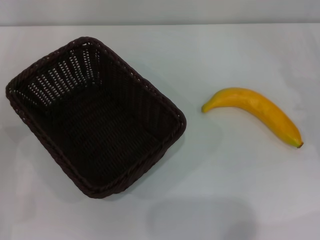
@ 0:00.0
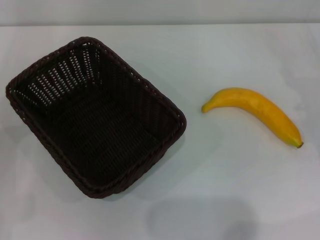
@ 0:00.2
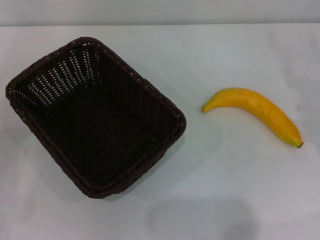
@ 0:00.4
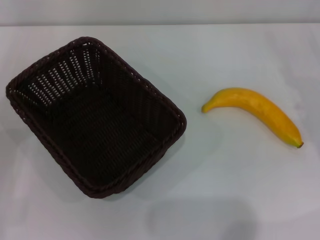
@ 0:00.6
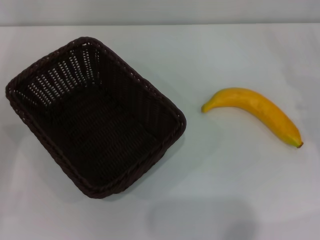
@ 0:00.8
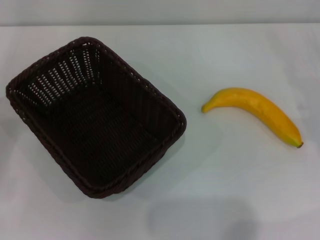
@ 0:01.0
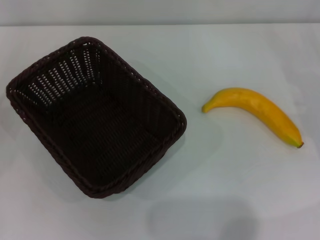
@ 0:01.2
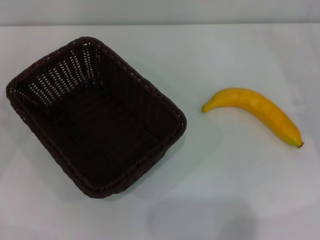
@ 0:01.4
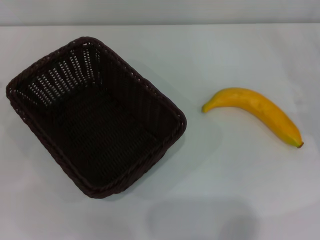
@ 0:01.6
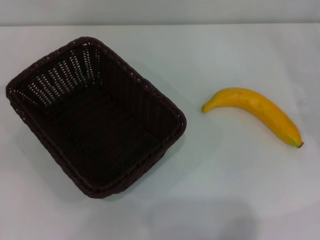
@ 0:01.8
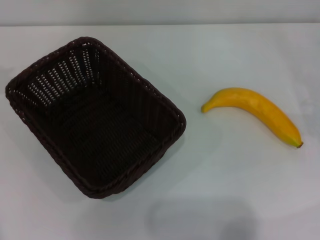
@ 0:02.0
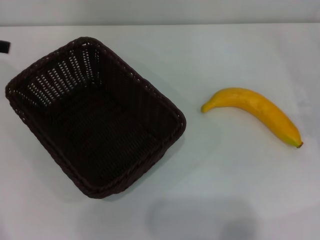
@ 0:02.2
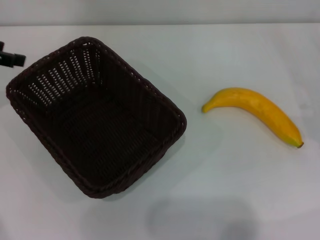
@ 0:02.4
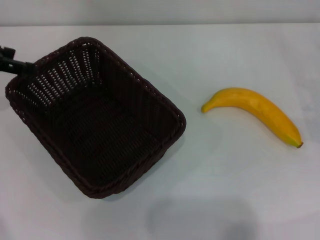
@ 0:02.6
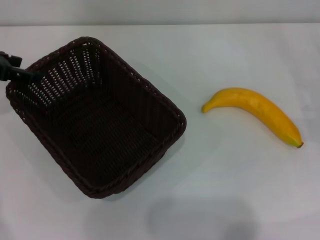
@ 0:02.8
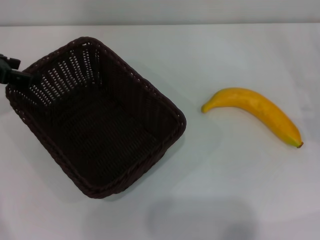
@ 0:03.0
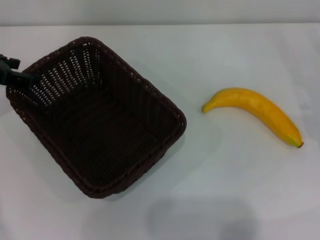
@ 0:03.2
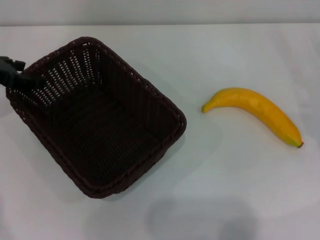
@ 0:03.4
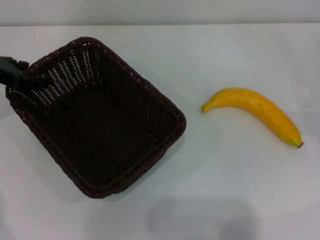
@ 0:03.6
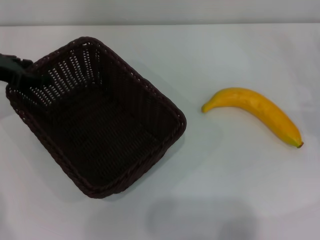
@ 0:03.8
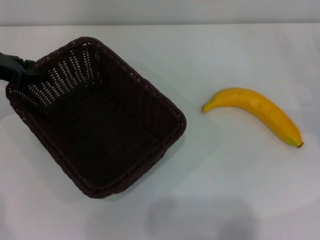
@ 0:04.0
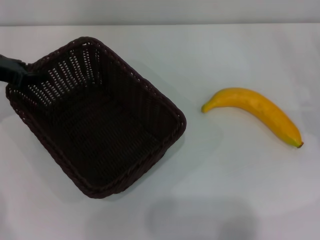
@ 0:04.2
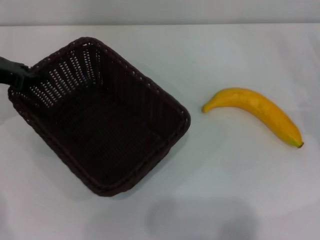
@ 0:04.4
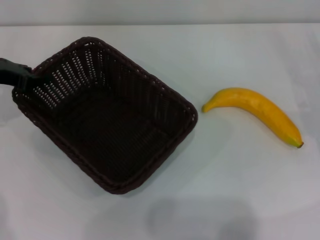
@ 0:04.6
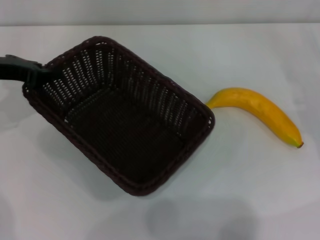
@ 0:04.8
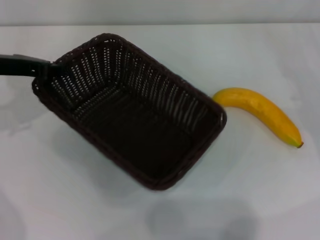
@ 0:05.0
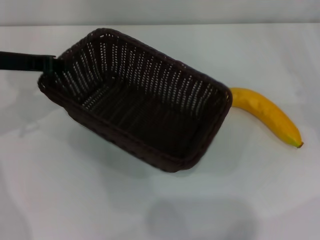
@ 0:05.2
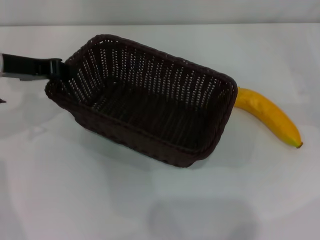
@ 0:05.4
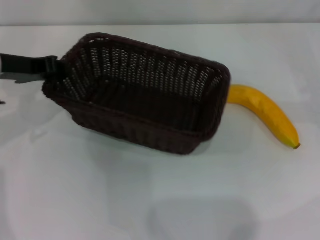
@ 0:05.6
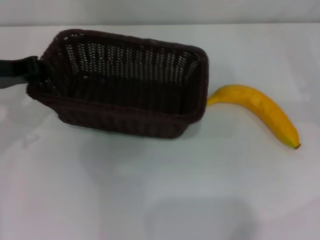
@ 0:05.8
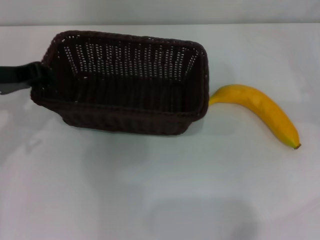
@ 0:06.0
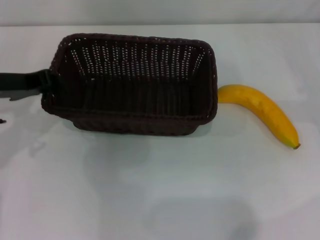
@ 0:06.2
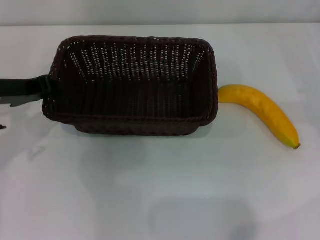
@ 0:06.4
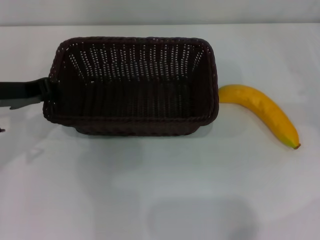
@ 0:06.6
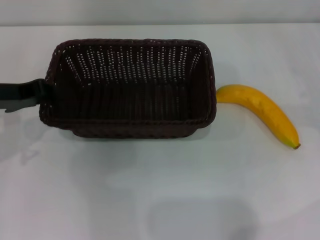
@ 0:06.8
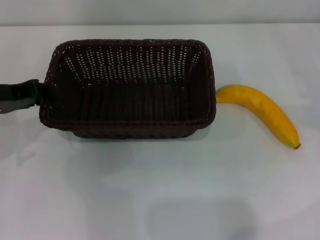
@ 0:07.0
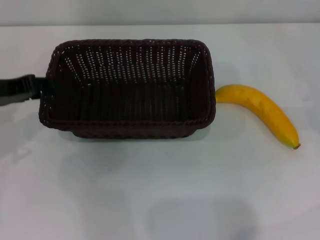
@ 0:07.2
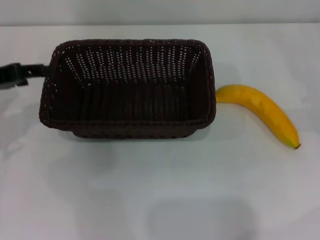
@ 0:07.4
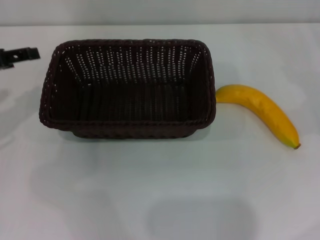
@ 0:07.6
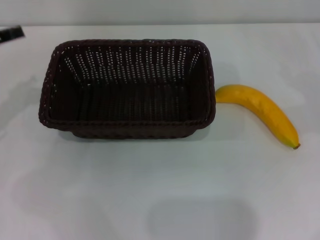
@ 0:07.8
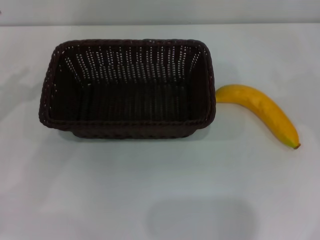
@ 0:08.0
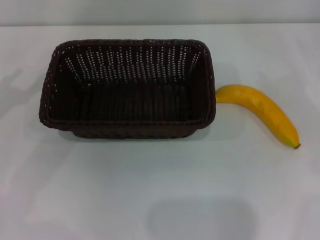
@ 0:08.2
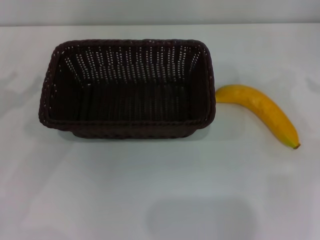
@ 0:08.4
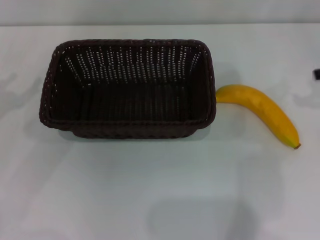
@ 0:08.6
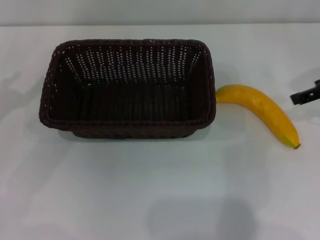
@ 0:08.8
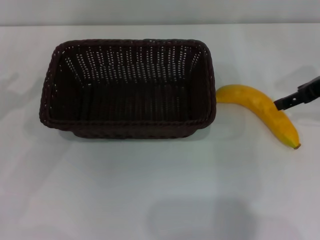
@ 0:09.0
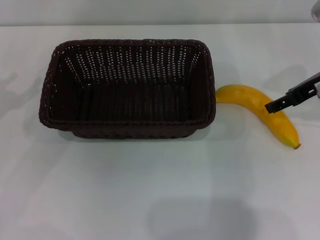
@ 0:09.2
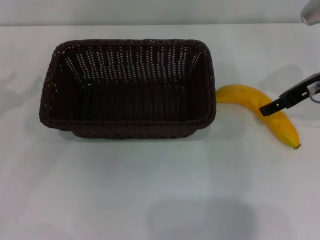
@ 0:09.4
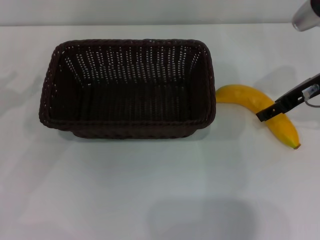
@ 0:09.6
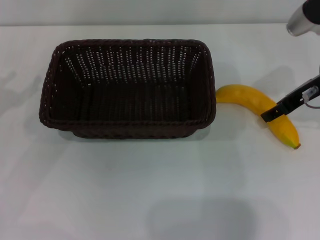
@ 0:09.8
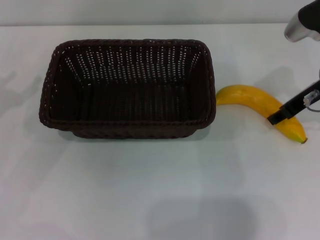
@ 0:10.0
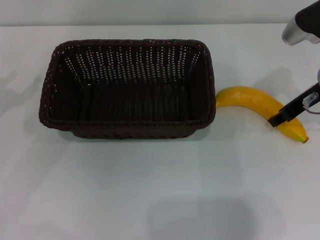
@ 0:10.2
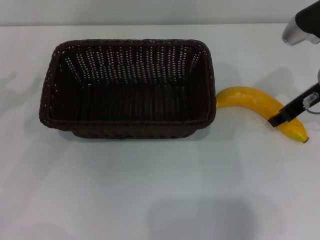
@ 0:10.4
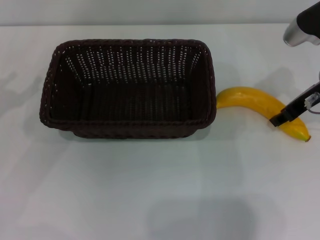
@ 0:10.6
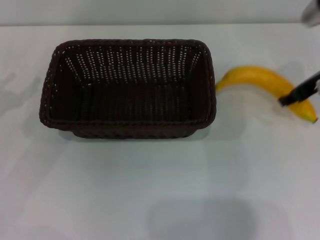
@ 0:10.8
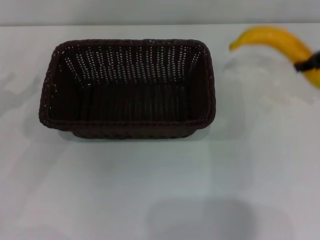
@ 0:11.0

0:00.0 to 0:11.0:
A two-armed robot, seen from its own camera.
Step, 0:00.0 to 0:04.8: Pick up the dark basket with the left gripper.
Step, 0:05.0 to 0:07.4: Place the dark basket in the center of view with the left gripper.
Step, 0:07.6 to 0:10.8: Pick up the banana with the right gripper.
0:01.6 to 0:03.2: The left gripper is displaced to the right and forward by some 15 cm.
0:03.2 to 0:04.8: The left gripper closes its fingers.
0:04.8 to 0:06.2: The left gripper travels backward by approximately 5 cm; the right gripper changes place by roughly 5 cm.
0:06.2 to 0:07.8: The left gripper heads to the left, covering roughly 10 cm, and opens.
0:07.8 to 0:09.4: The right gripper travels to the left by approximately 15 cm; the left gripper moves some 5 cm.
0:09.4 to 0:11.0: The right gripper shifts by some 5 cm, and closes its fingers.

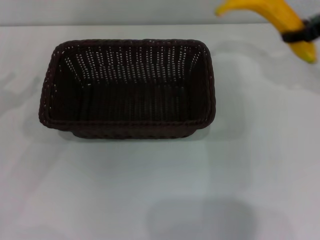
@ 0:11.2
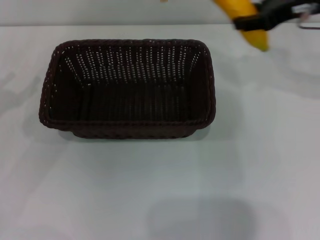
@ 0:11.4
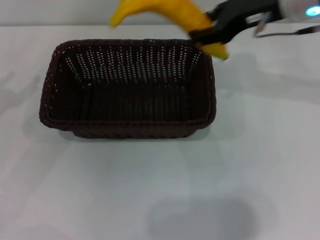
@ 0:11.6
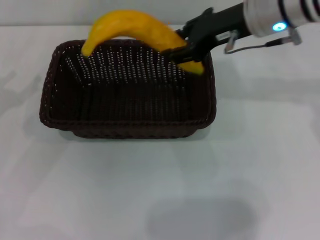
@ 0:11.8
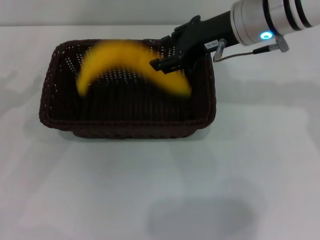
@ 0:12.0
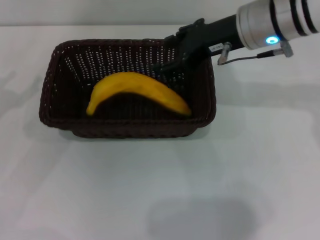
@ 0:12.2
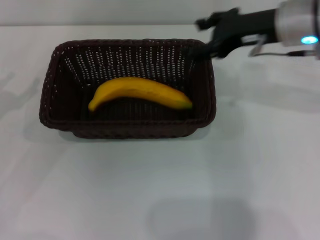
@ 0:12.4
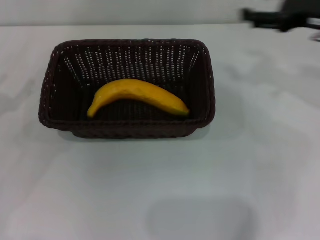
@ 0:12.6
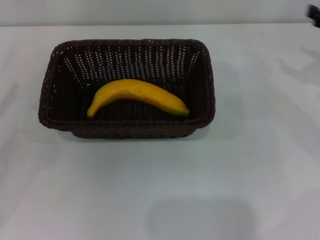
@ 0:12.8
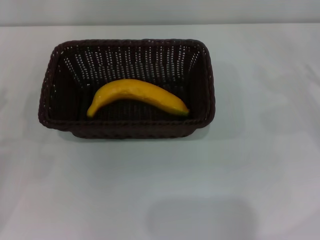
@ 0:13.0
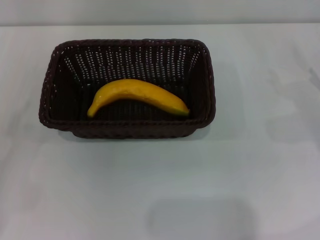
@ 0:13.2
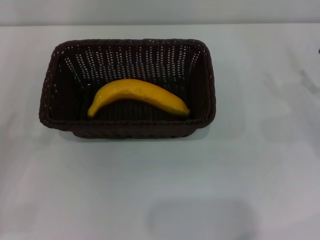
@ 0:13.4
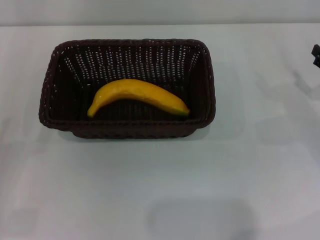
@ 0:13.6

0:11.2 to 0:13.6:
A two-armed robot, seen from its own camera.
Step, 0:11.2 to 0:12.2: Place the banana into the dark basket with the right gripper.
0:11.2 to 0:12.4: The right gripper goes roughly 10 cm to the left, and opens.
0:12.4 to 0:13.6: The left gripper is displaced backward and downward by roughly 15 cm; the right gripper goes about 20 cm to the right and downward.
